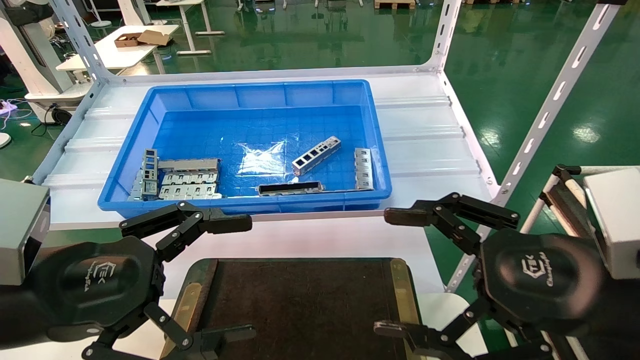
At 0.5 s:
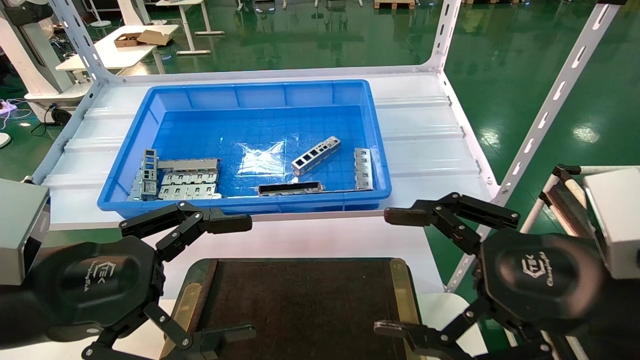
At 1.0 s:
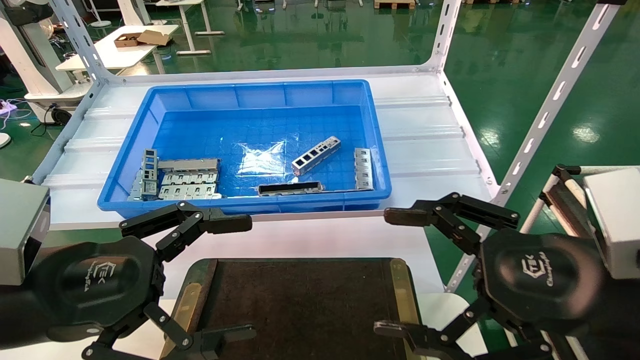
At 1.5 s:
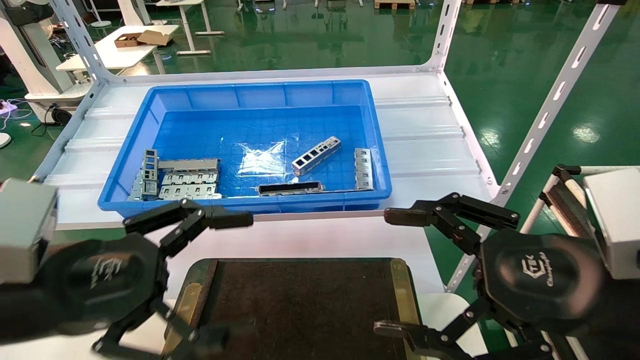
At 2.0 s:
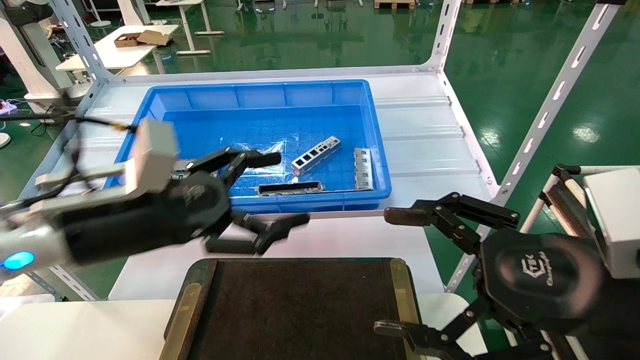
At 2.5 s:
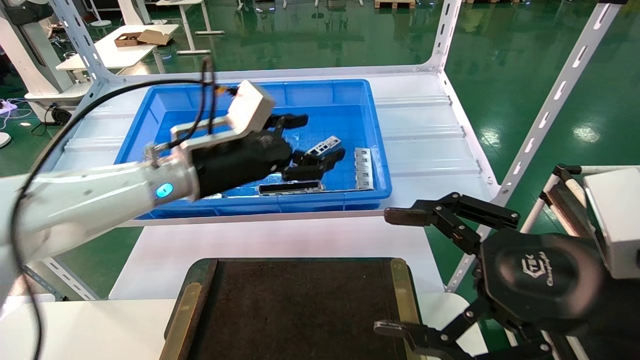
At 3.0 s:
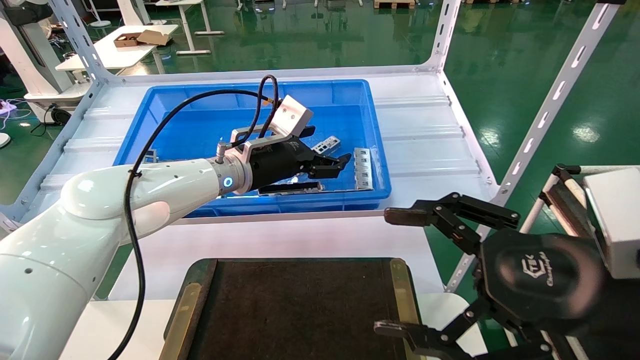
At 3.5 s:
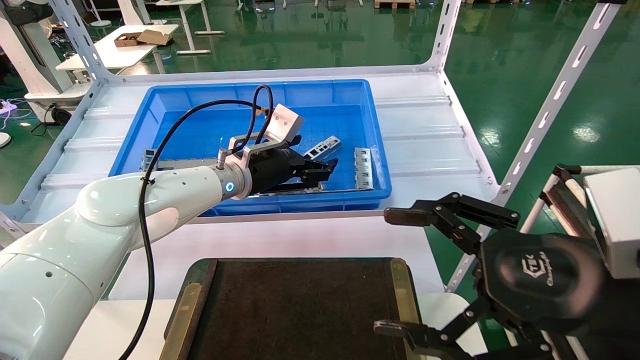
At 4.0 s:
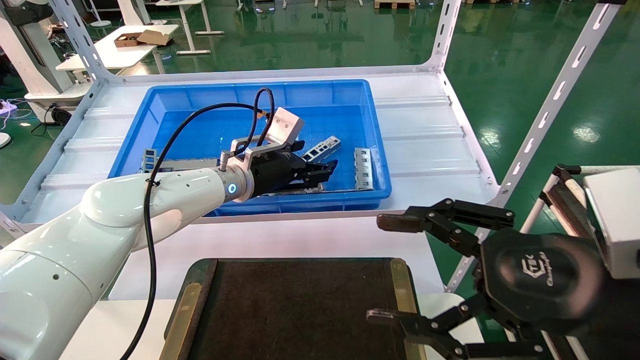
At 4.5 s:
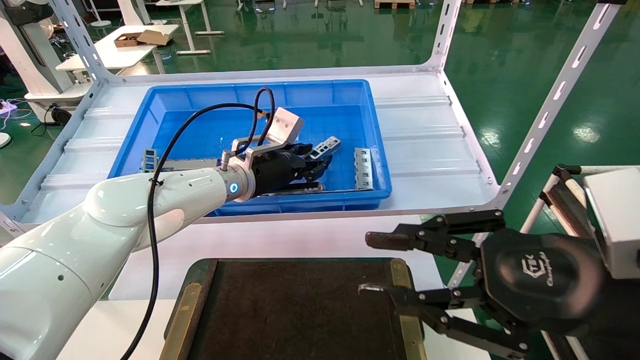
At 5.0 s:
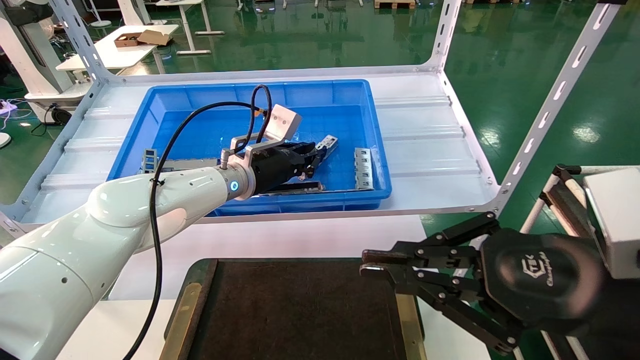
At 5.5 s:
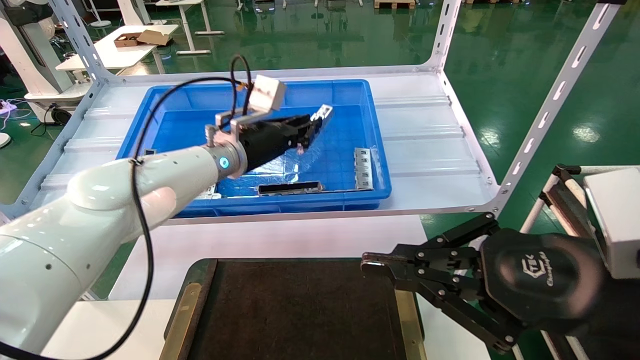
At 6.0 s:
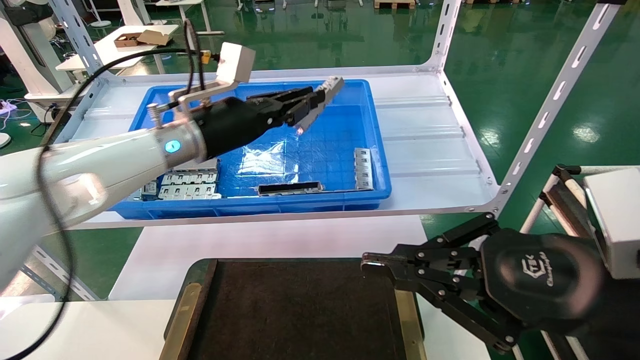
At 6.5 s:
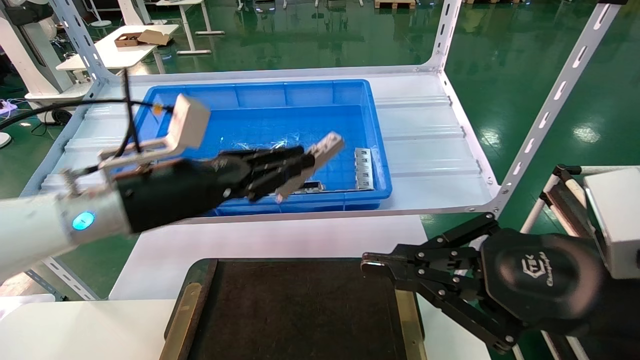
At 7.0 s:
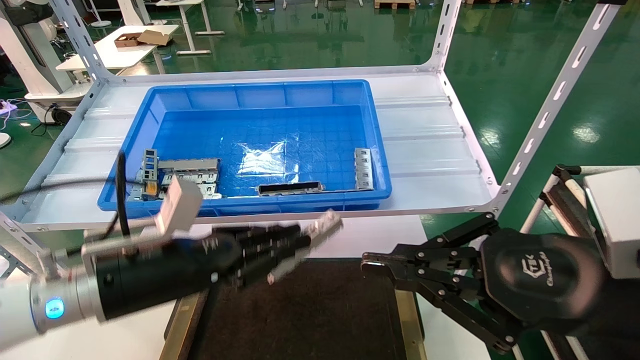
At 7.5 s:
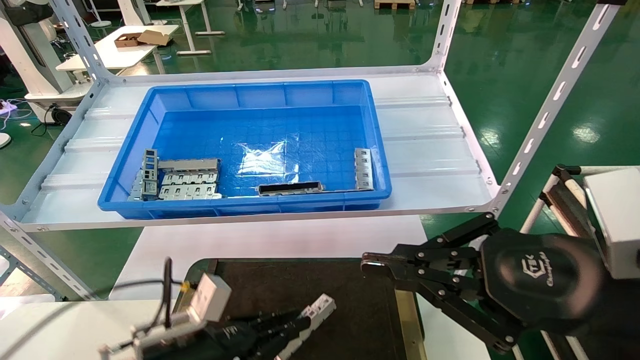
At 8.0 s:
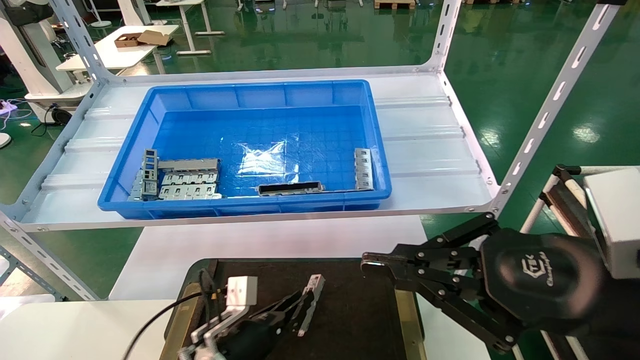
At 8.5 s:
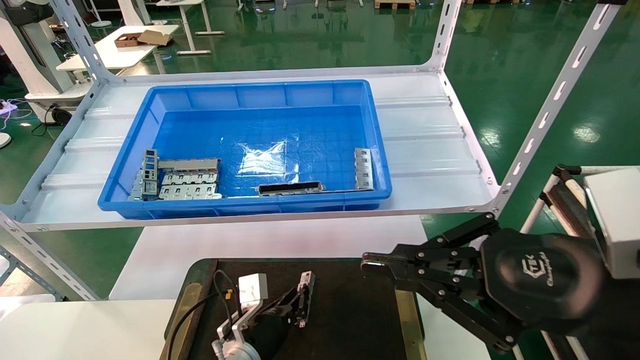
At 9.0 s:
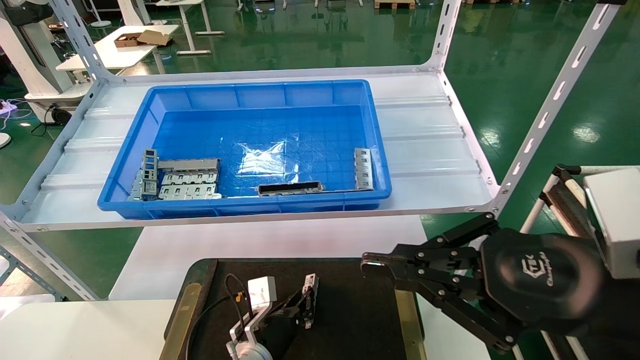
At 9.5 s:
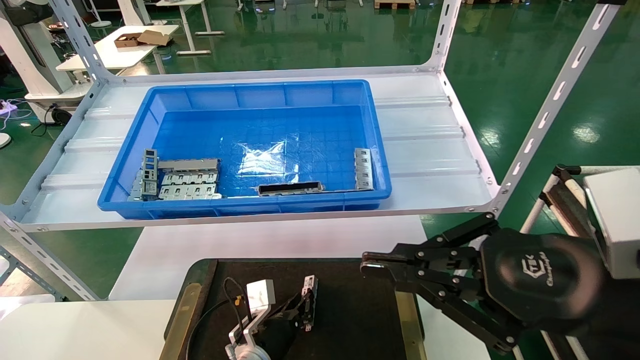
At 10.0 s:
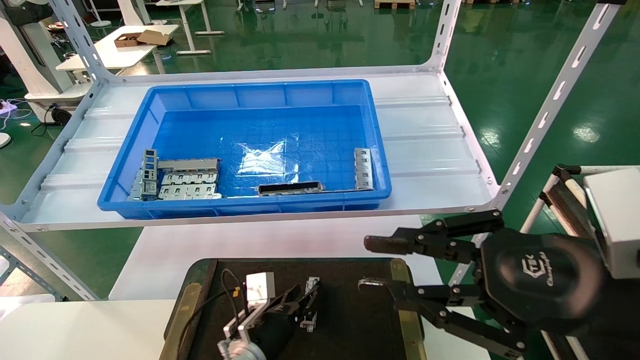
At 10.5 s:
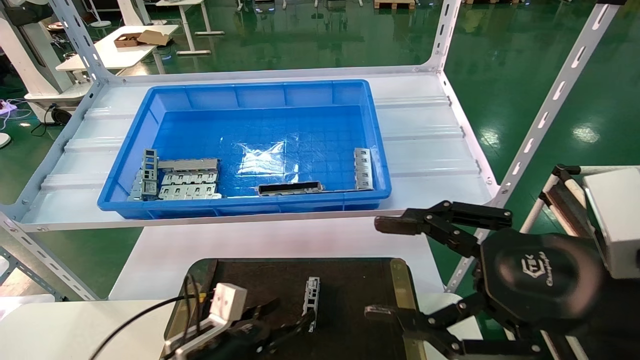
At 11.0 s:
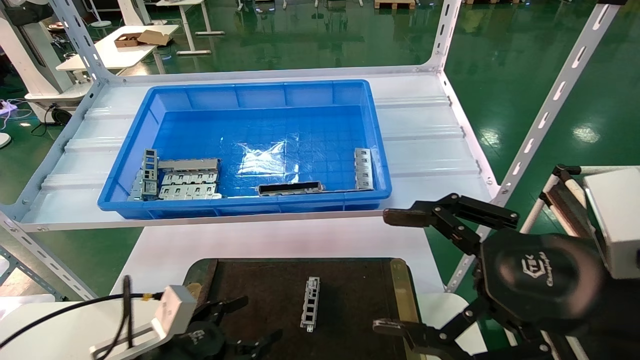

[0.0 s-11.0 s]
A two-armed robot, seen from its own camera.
Task of the whole recording: Grasp the part with one hand and place it on the black container.
Step, 2.0 to 4.5 s: Pick up the front USB bracket from the feeding area.
Step, 5.0 to 9.5 s: Place the front USB bracket into the box.
0.0 to 2.0 s: The left gripper heads forward, covering roughly 10 cm.
2.0 to 3.5 s: The left gripper heads forward and to the right, covering roughly 20 cm.
3.5 to 5.5 s: The left gripper closes its fingers; the right gripper closes up.
5.5 to 7.5 s: The left gripper travels downward and backward by roughly 30 cm.
7.5 to 9.0 s: The left gripper shifts approximately 15 cm downward, to the right and forward.
9.0 to 11.0 s: The right gripper opens up; the left gripper goes roughly 20 cm to the left, backward and upward, and opens up.

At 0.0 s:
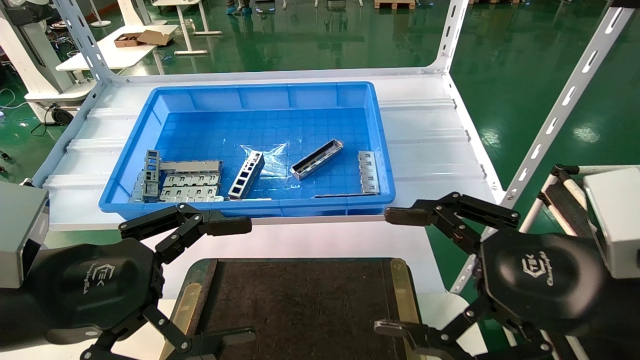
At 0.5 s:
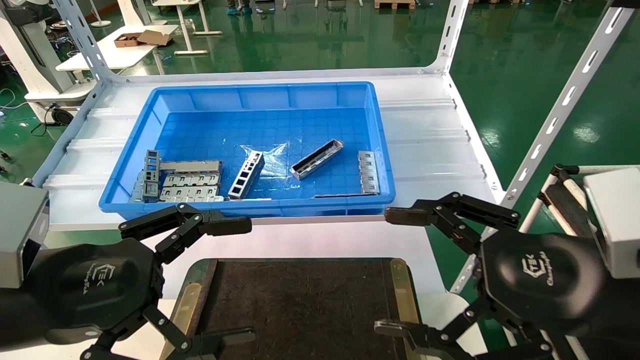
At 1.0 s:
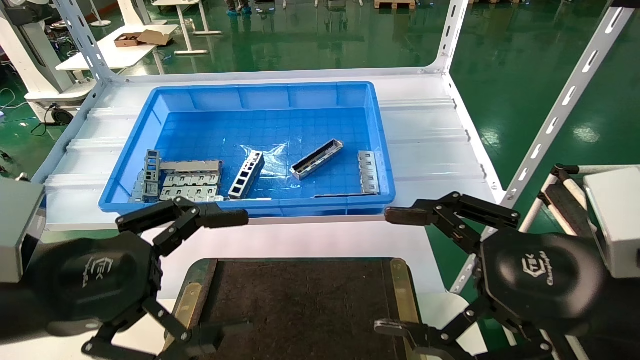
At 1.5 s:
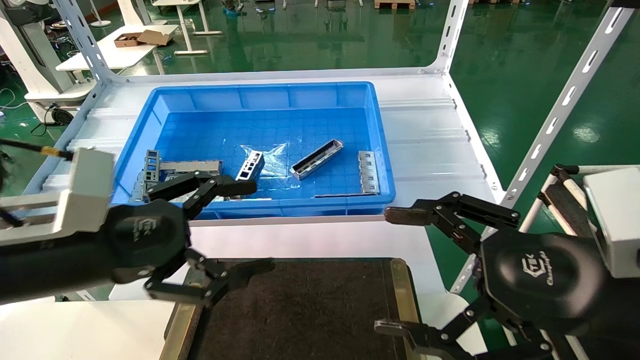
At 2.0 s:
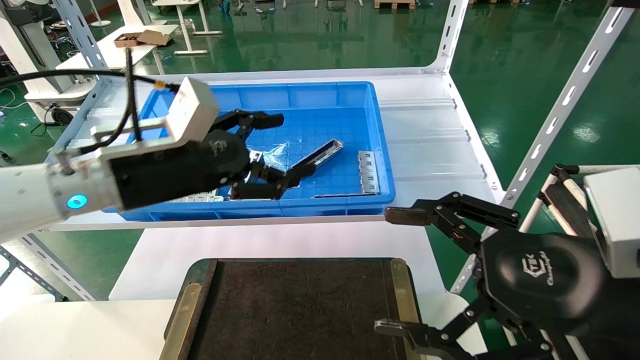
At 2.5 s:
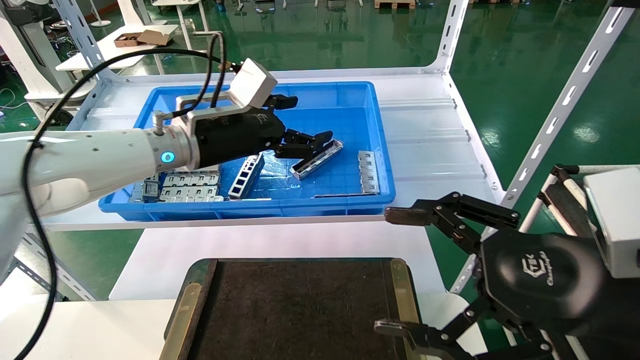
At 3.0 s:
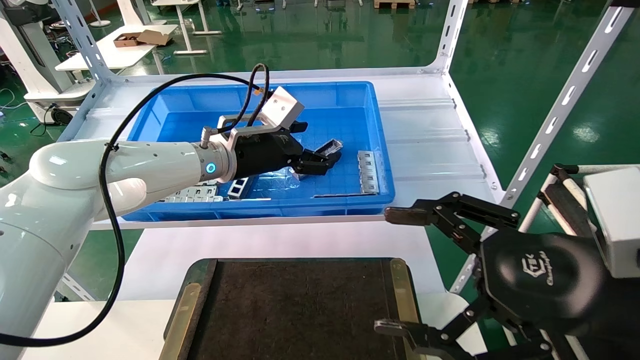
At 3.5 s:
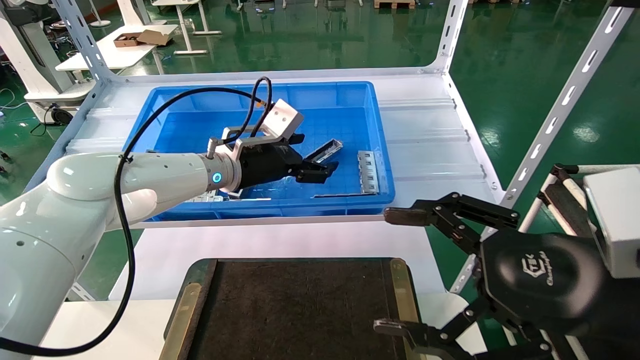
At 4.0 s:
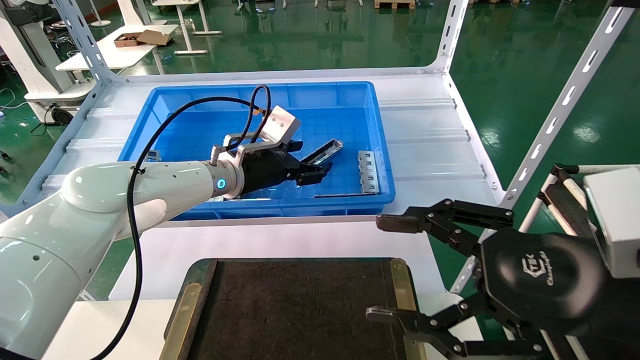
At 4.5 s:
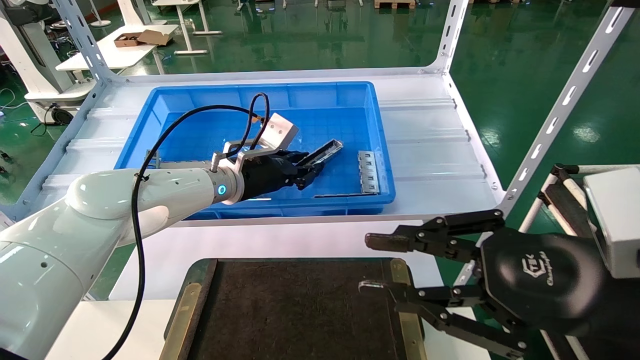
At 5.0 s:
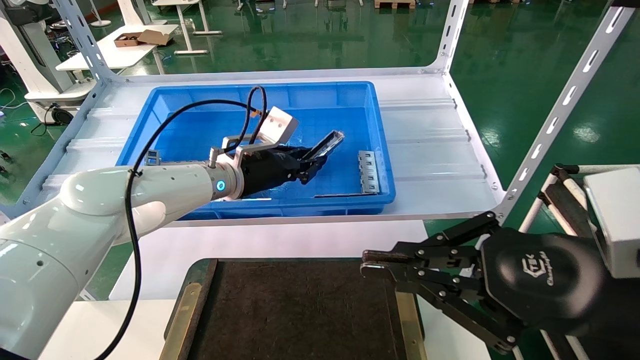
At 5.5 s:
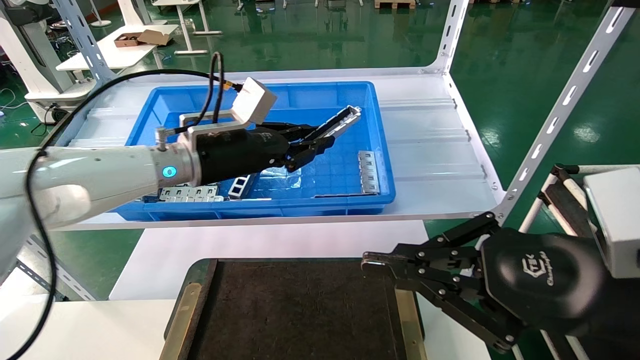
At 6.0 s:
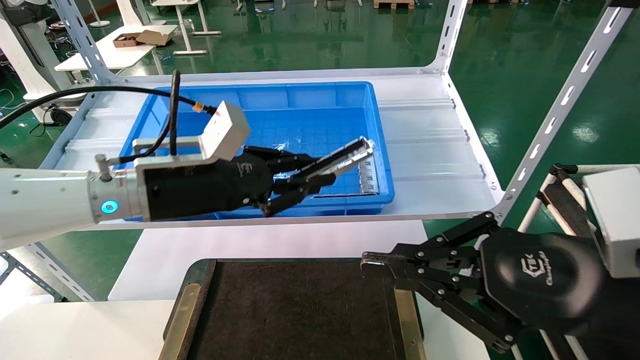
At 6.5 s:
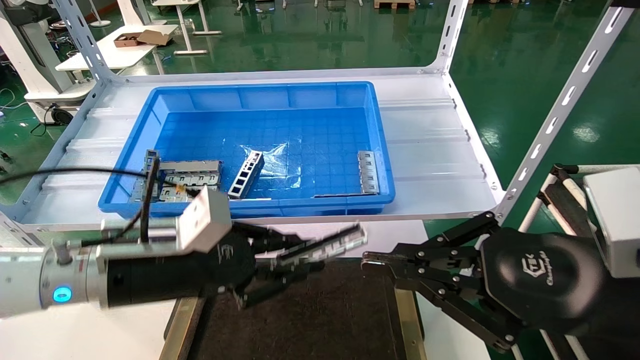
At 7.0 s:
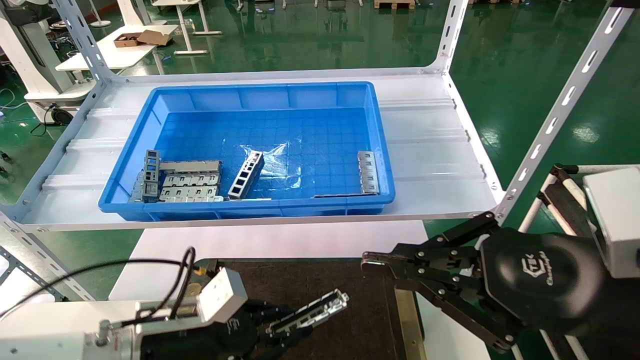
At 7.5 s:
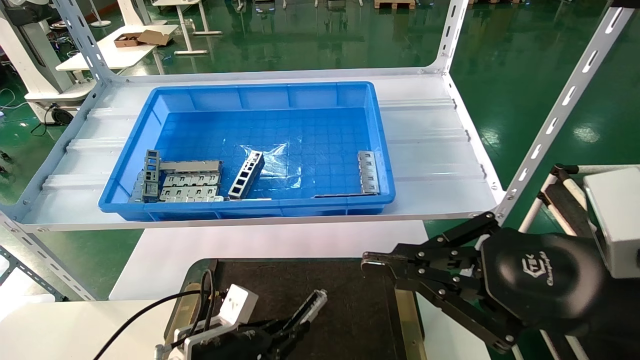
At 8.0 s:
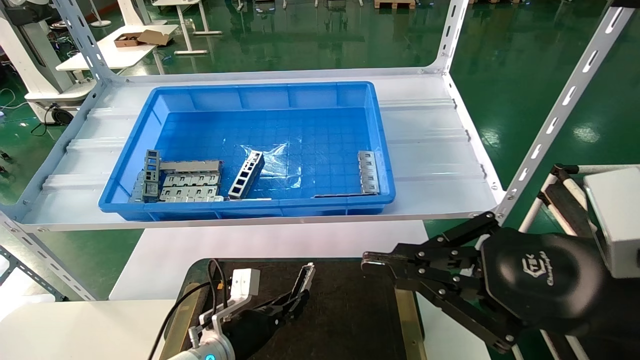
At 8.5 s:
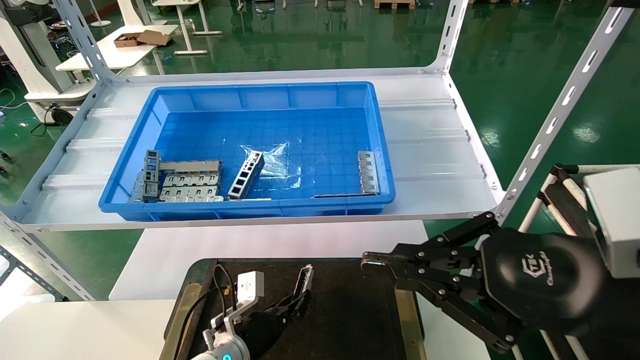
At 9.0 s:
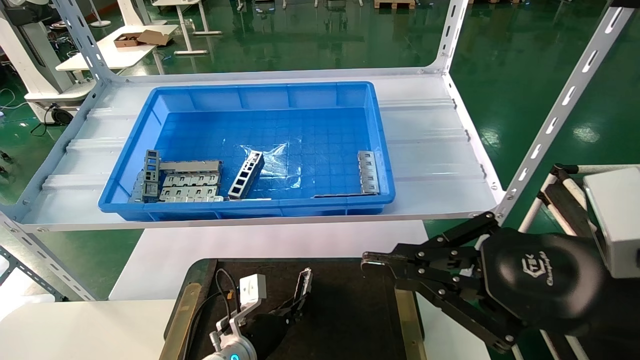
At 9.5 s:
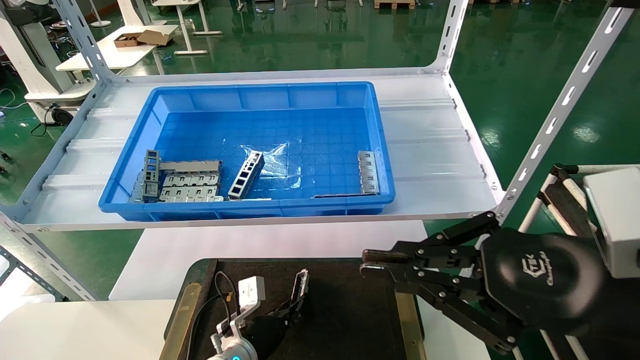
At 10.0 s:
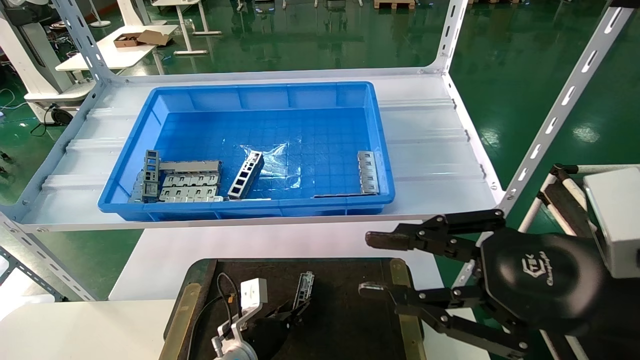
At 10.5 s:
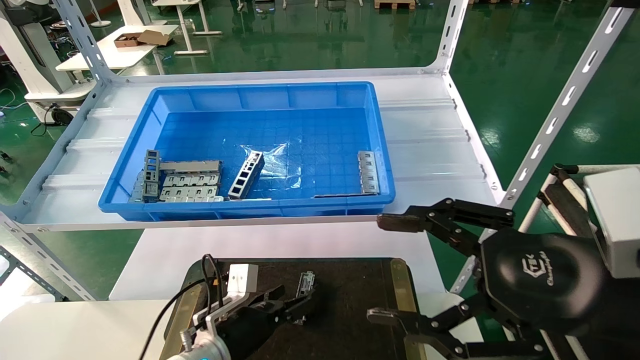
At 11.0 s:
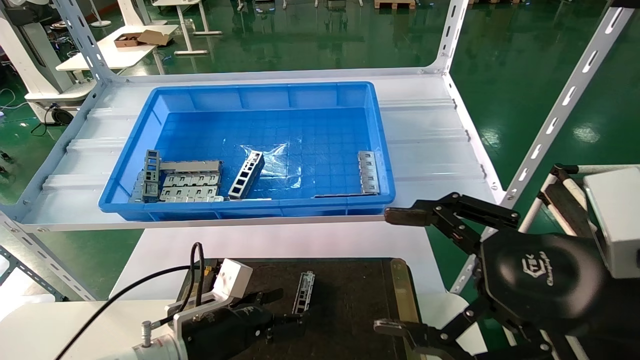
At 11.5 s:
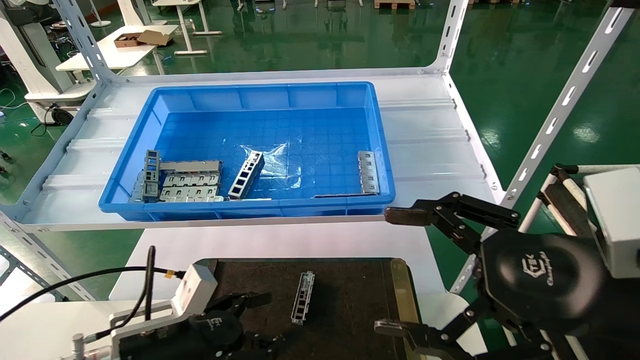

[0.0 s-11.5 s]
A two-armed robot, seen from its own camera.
Task of the whole recording: Grasp the part with one hand and place it on the black container.
Step, 1.5 to 5.0 s: Pick up the front USB bracket from the feeding area.
Step, 5.5 to 10.0 s: Place the front USB bracket into the box.
0.0 to 2.0 s: The left gripper shifts roughly 15 cm forward.
2.0 to 4.0 s: The left gripper goes roughly 15 cm forward and to the right.
4.0 to 6.0 s: The right gripper closes its fingers; the left gripper is displaced backward and to the left by about 15 cm, and closes up.
6.0 to 7.5 s: The left gripper moves downward, roughly 25 cm.
7.5 to 9.5 s: The left gripper travels forward, downward and to the right by roughly 10 cm.
9.5 to 11.5 s: The right gripper opens, while the left gripper goes approximately 20 cm upward, backward and to the left, and opens.
